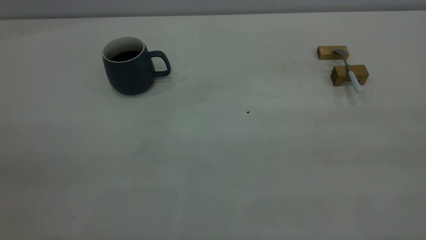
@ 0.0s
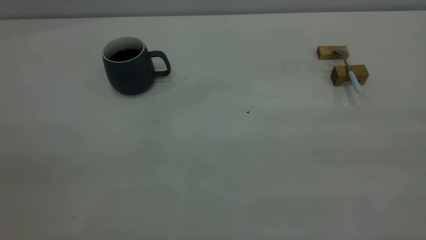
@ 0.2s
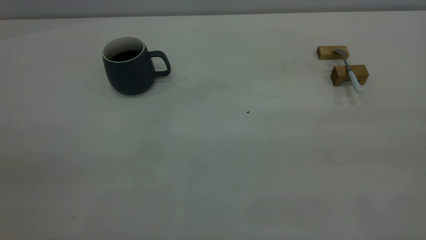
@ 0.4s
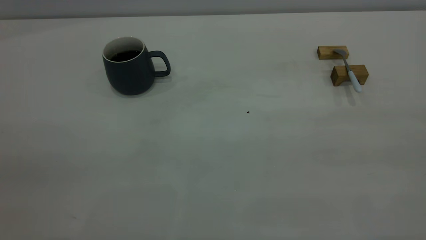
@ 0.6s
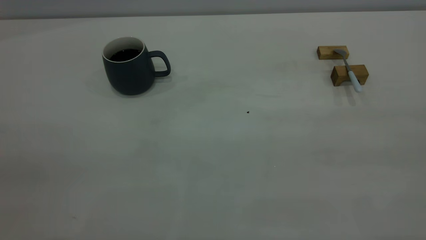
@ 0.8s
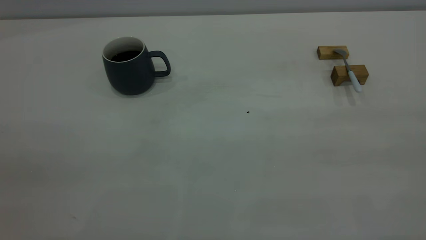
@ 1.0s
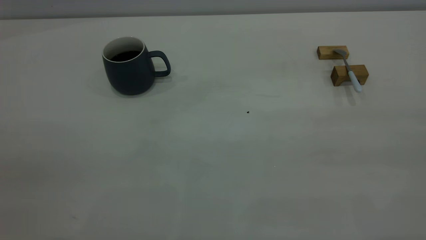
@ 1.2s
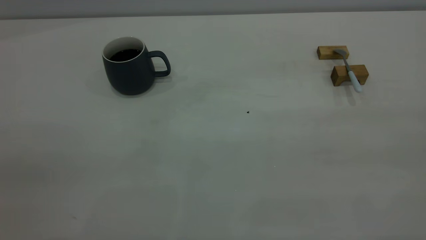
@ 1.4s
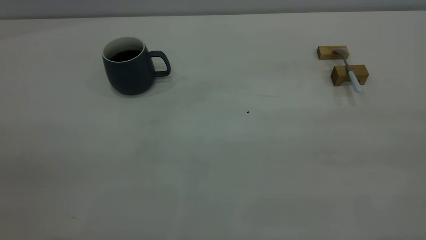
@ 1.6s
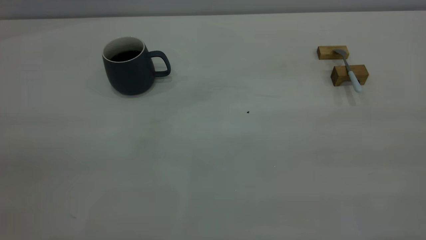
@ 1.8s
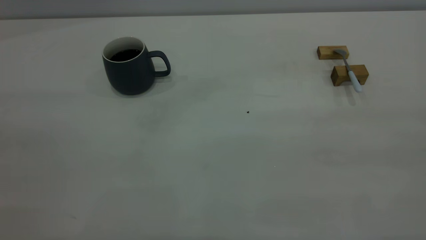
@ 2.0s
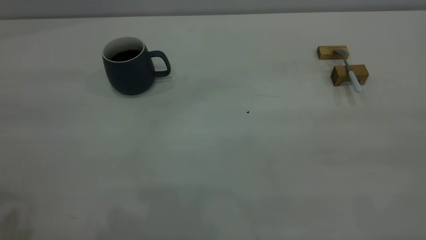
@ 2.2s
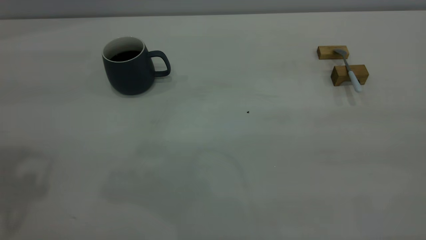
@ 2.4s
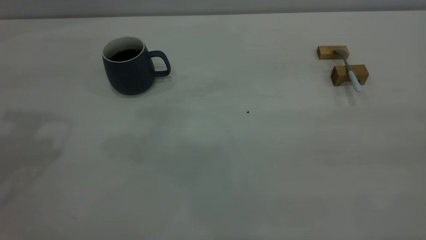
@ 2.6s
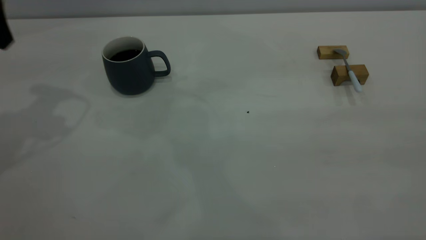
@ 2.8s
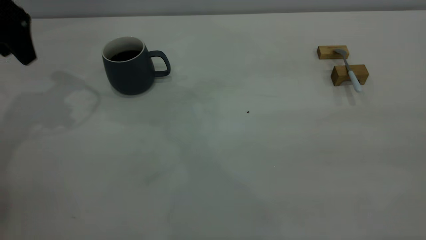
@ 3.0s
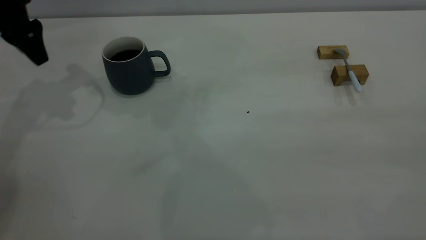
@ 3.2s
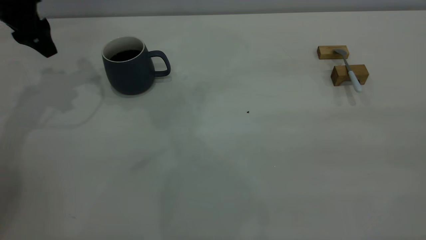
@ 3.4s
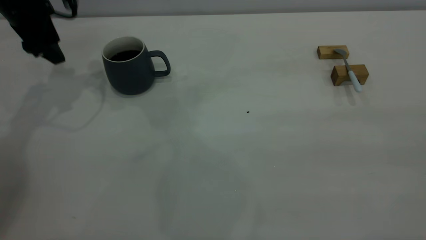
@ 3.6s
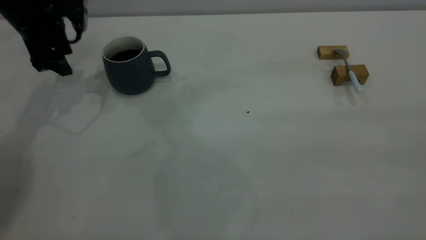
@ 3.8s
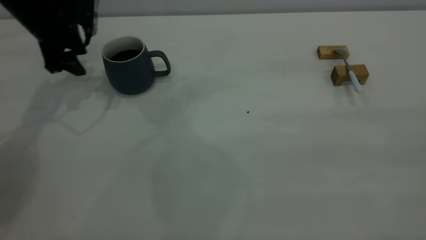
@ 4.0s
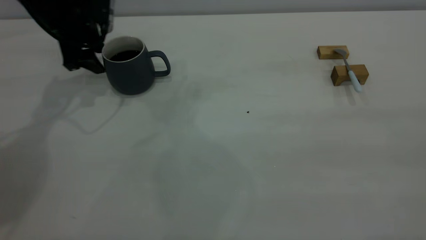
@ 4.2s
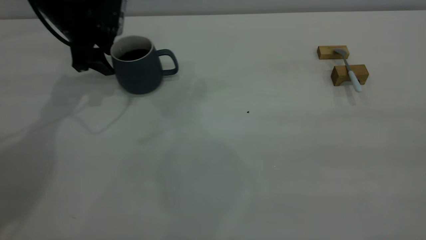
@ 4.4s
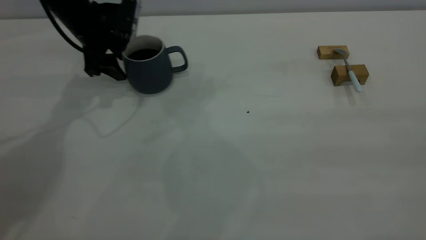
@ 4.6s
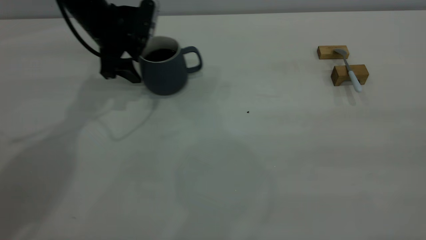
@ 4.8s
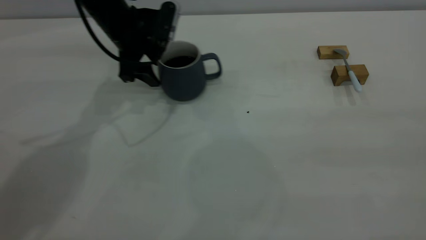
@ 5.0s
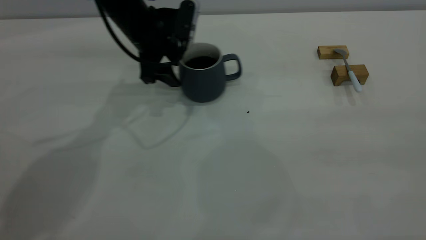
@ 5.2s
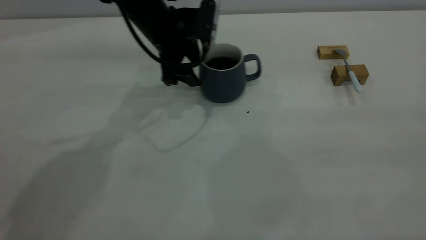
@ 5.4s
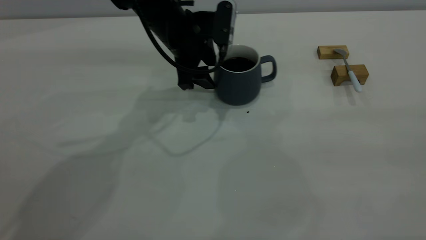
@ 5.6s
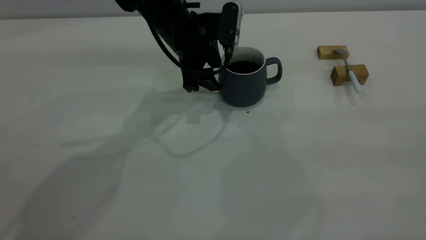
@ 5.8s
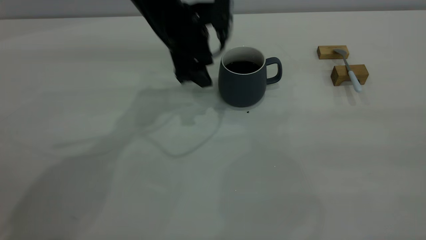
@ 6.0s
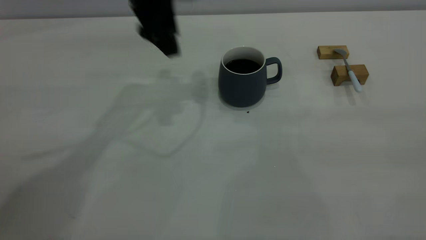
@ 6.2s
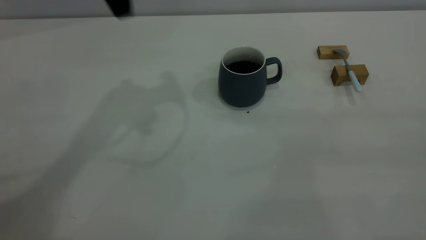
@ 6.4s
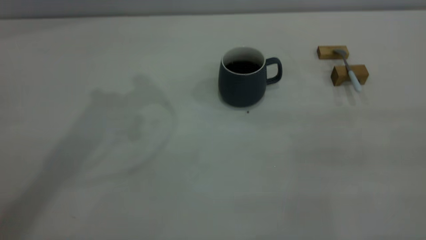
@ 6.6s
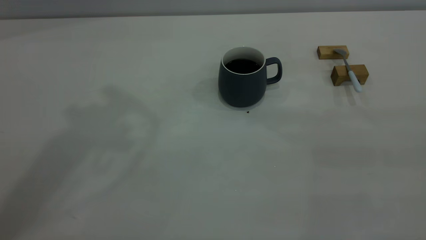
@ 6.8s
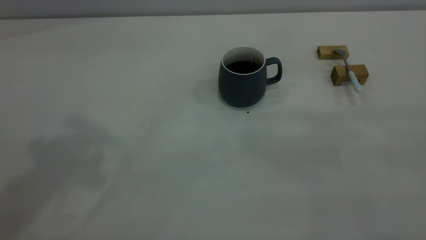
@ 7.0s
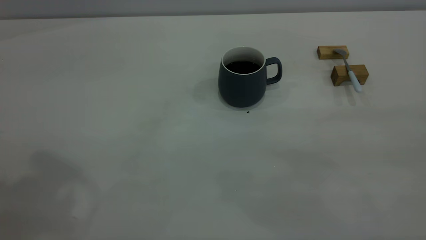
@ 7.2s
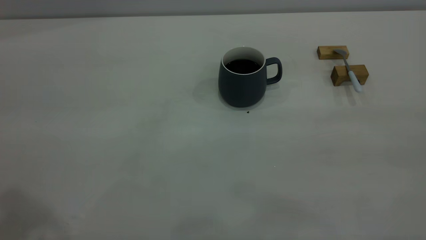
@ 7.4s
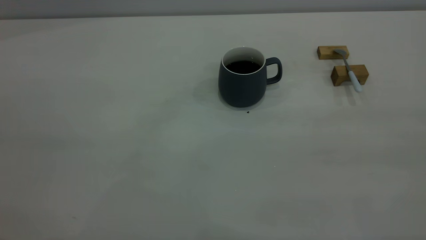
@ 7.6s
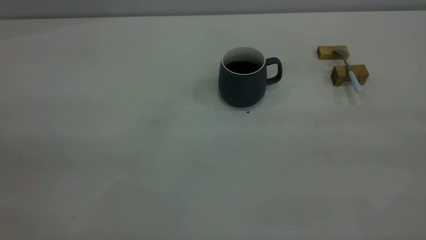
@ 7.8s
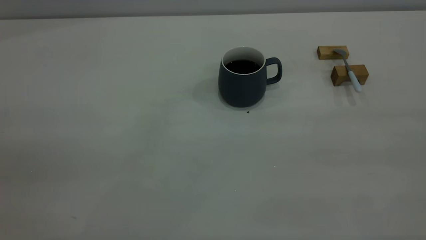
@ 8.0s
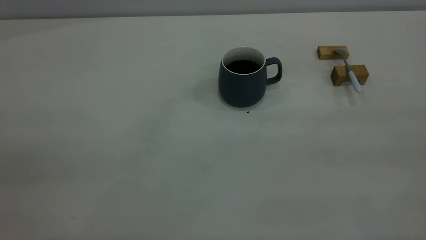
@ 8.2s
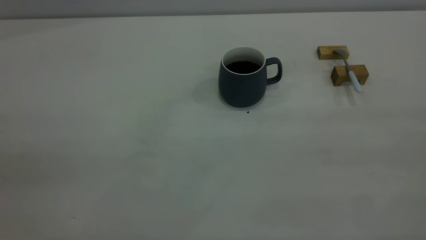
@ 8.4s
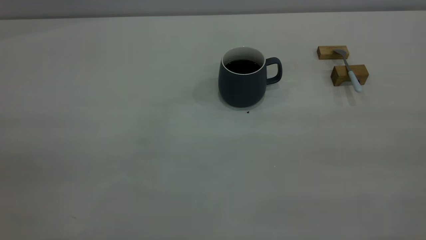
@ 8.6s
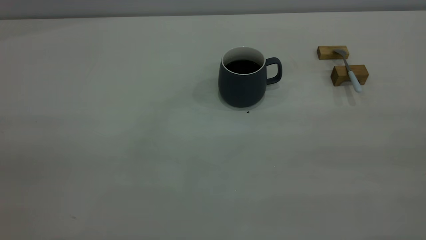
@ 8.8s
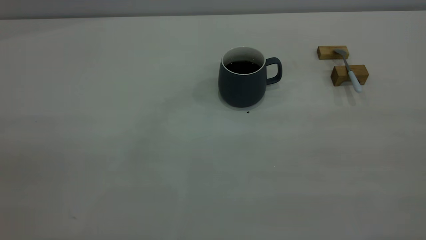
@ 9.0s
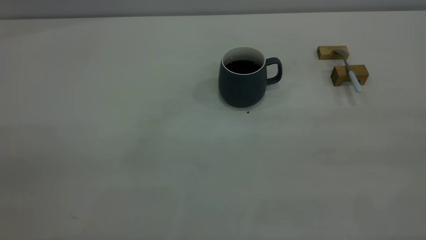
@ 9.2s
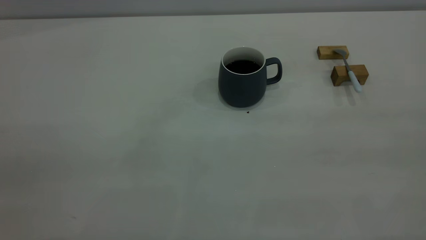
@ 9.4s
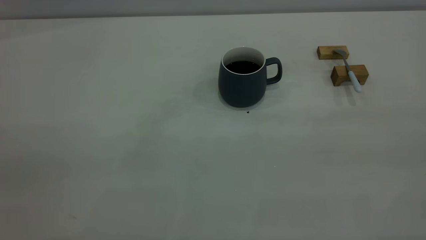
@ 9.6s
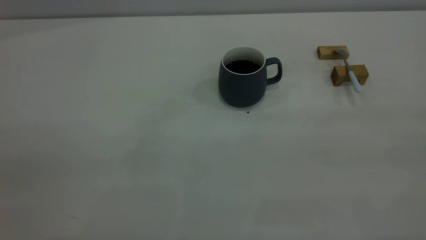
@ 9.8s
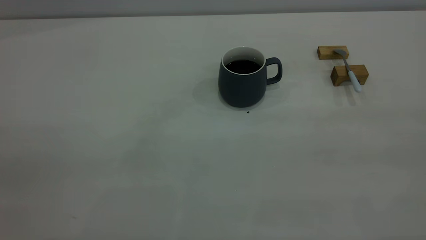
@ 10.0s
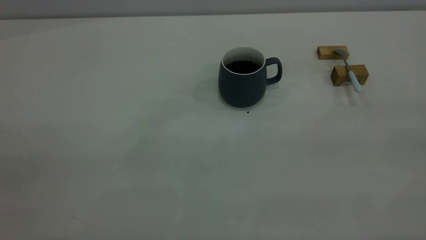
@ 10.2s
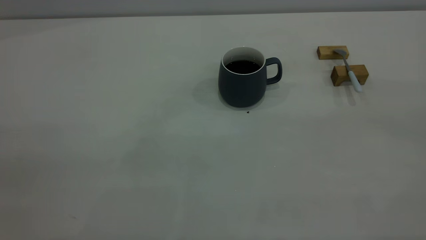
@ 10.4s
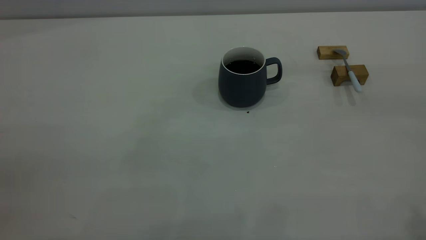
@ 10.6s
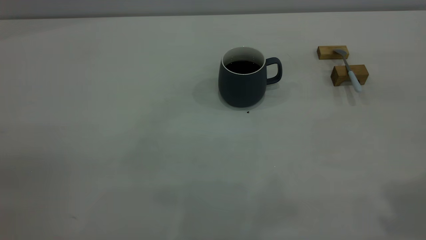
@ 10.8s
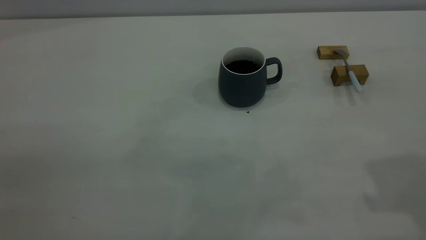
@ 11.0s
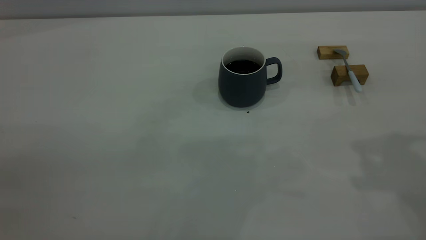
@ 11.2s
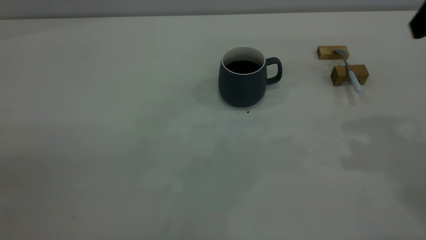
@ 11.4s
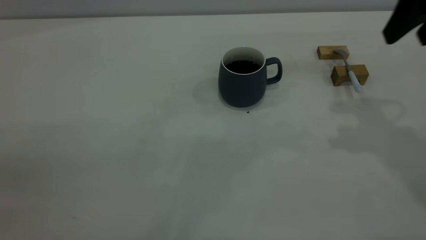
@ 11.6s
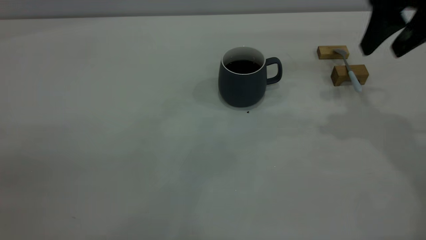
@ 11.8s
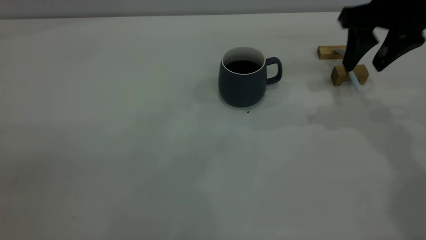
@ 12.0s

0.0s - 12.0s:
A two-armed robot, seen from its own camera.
Step, 0.0s - 6.0s: Move the cup with coffee to the center of view.
0.0s - 1.6s: The two grippers keep their place.
1.6s - 3.0s: The left gripper goes roughly 40 cm forward.
3.0s - 4.4s: The left gripper heads downward, forward and to the right, covering approximately 15 cm.
4.4s - 6.0s: The left gripper moves to the right, some 15 cm.
6.0s - 7.6s: The left gripper goes approximately 50 cm backward, upward and to the left.
10.4s - 12.0s: The right gripper moves forward and downward, roughly 40 cm.

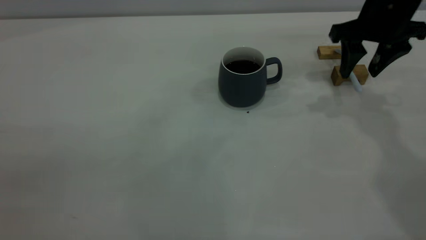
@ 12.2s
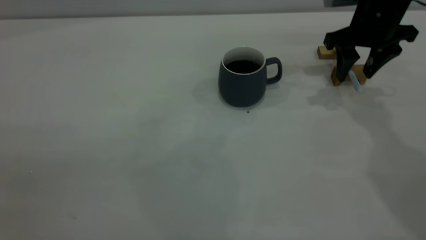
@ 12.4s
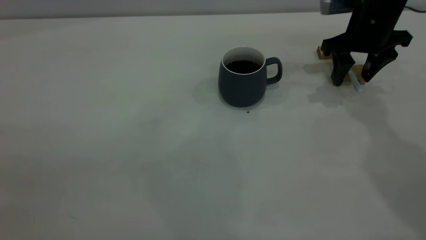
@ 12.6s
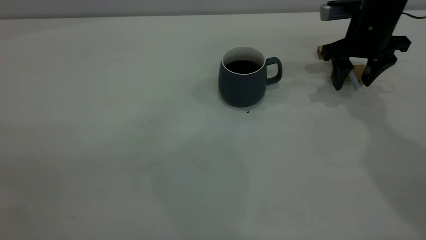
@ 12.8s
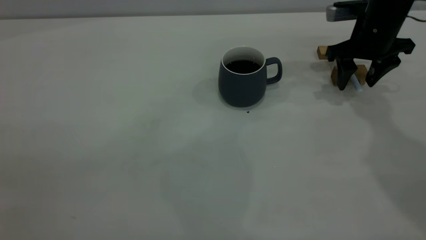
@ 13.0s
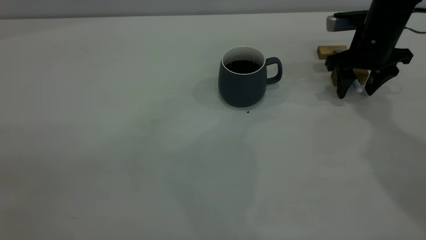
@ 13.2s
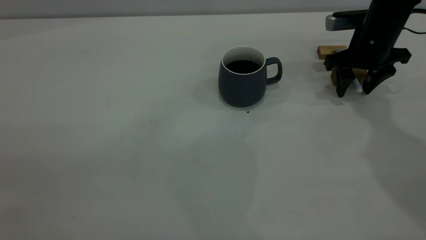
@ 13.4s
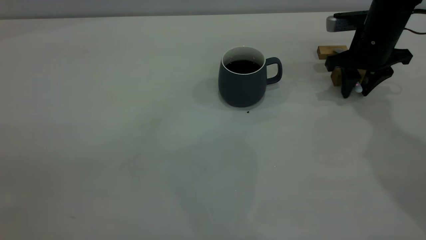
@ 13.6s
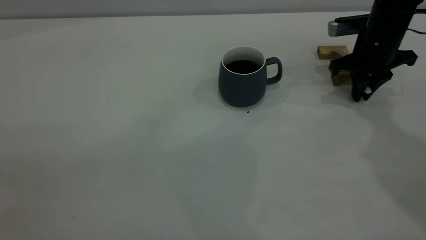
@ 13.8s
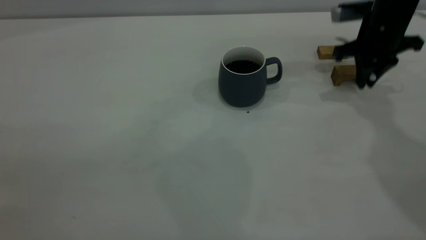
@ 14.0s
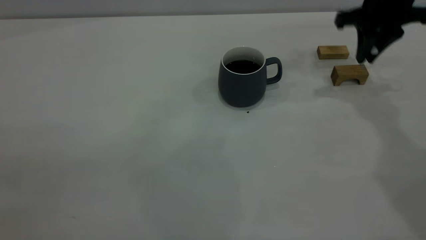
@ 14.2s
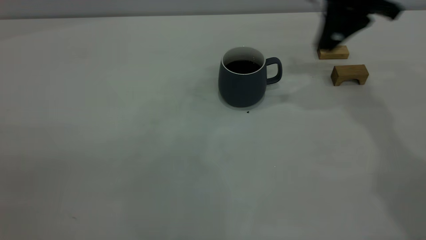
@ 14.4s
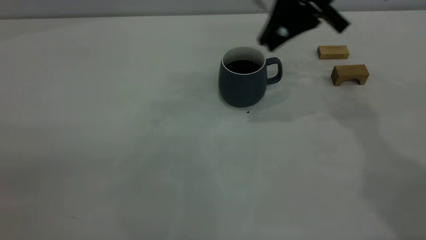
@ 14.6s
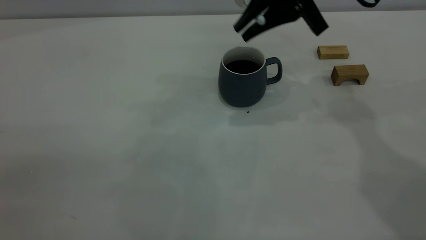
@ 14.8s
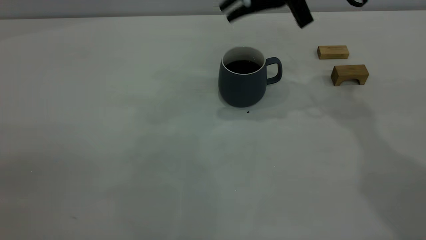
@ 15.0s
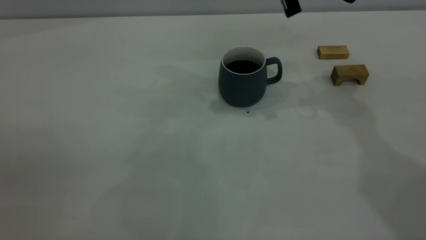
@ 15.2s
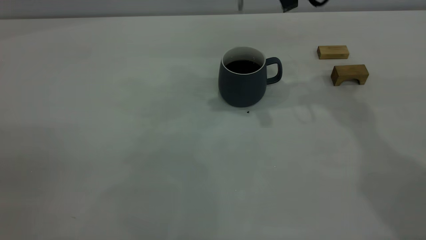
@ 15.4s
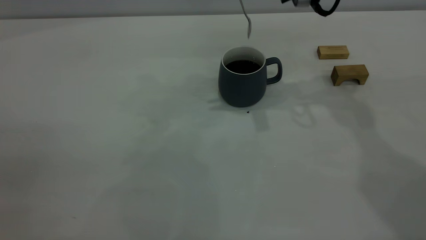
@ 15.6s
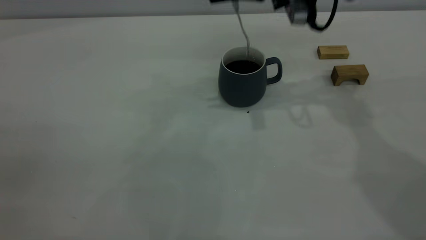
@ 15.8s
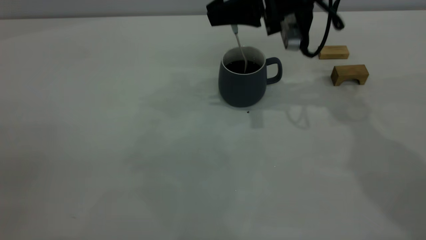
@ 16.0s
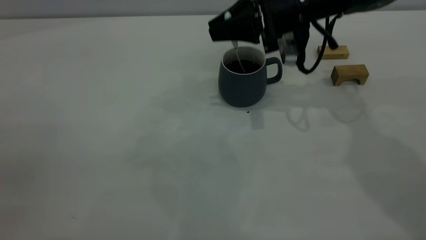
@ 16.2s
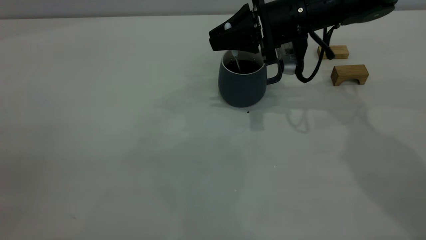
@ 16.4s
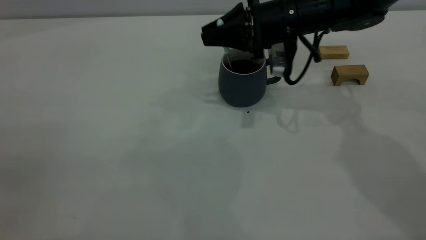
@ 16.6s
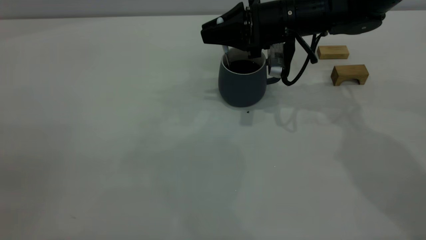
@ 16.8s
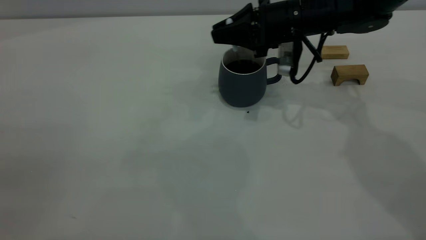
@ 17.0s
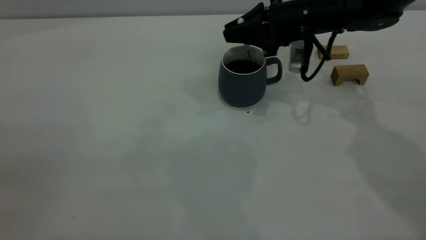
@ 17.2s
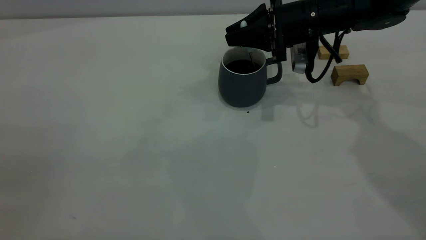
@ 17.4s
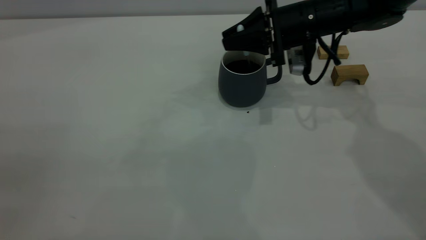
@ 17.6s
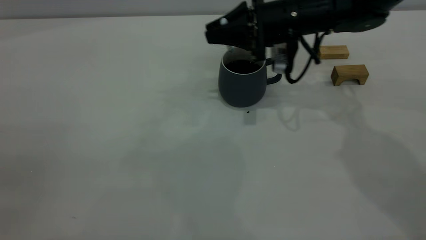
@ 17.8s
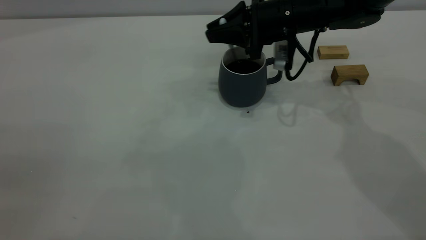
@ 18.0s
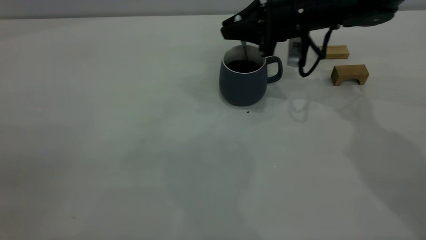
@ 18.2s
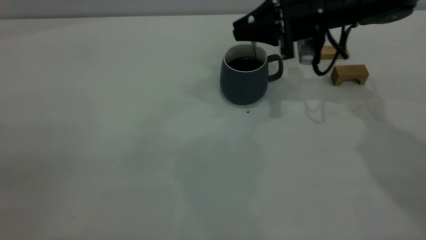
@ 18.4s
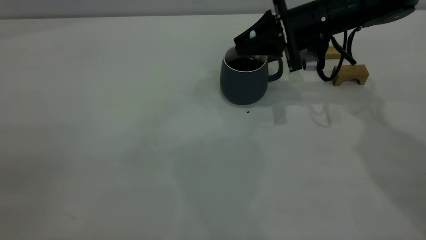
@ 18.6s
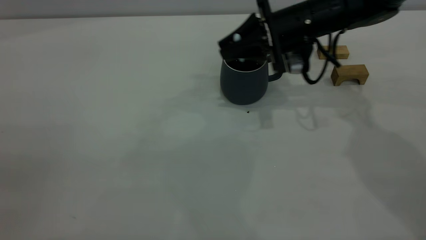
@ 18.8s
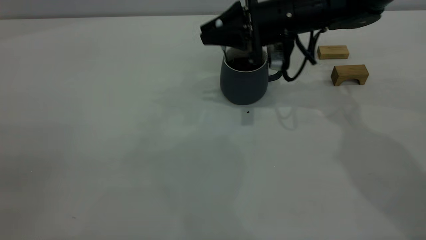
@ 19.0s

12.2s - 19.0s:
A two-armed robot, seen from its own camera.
12.2s - 13.6s: The right gripper is displaced downward by roughly 5 cm, and closes its fingers.
13.6s - 15.0s: The right gripper heads upward and to the left, covering approximately 20 cm, and closes.
15.0s - 16.2s: The right gripper shifts some 10 cm downward.
16.2s - 19.0s: The grippers move only a little.
